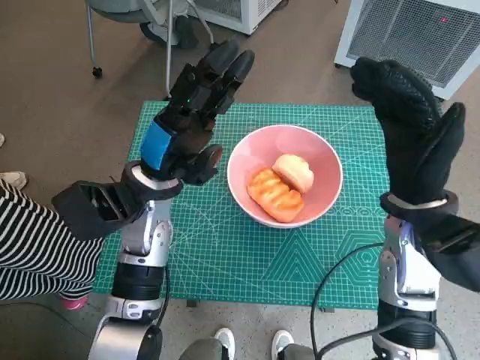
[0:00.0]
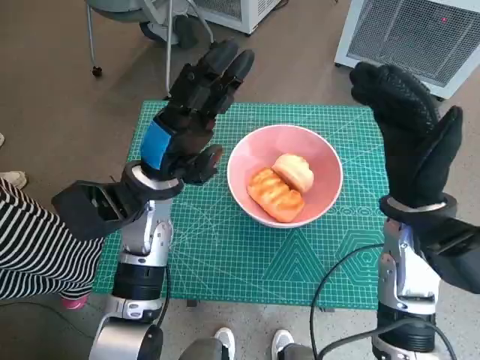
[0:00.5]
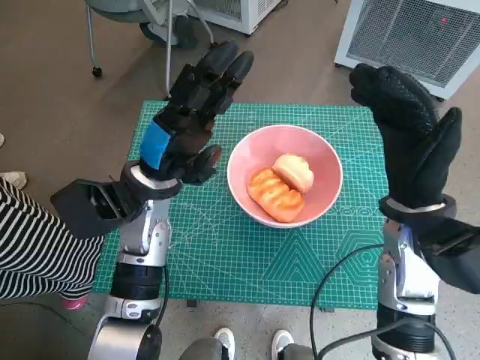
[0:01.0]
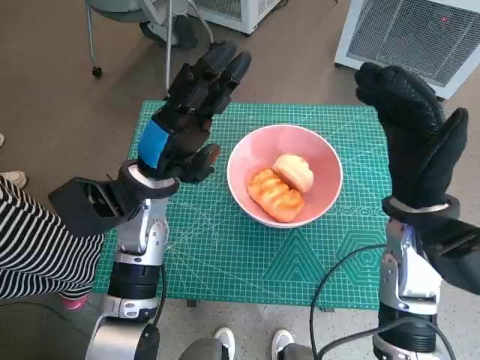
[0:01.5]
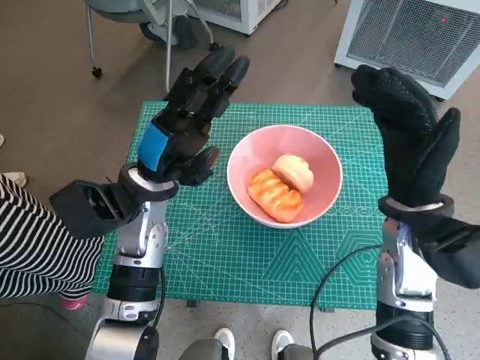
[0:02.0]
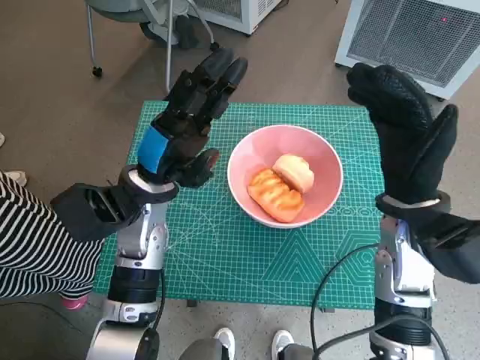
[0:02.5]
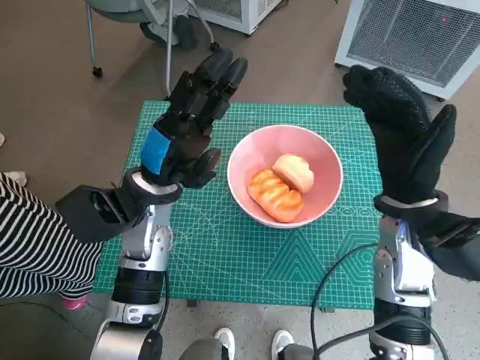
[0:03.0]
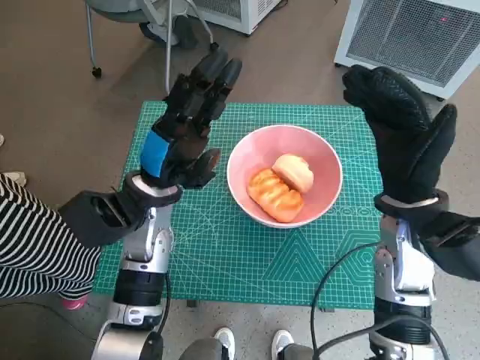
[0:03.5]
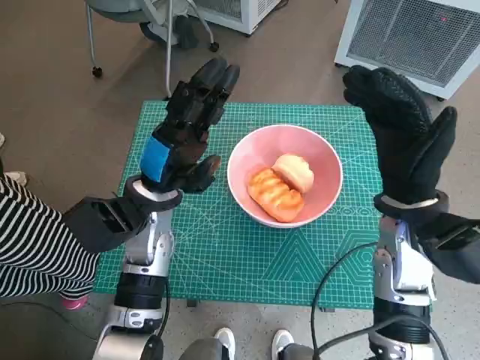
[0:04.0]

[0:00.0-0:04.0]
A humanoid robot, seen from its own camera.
Task of the whole recording: Push the bowl into the center of the table and put the bread into the bowl.
0:00.0 to 0:02.0: The two hands keep their place.
0:02.0 to 0:04.0: The hands move only a little.

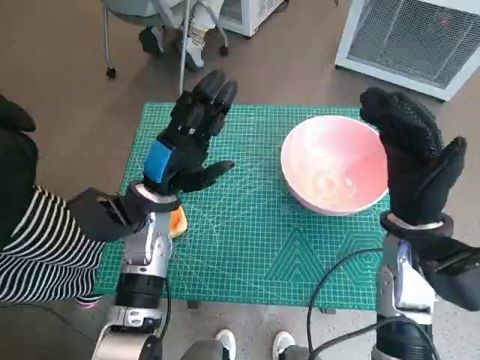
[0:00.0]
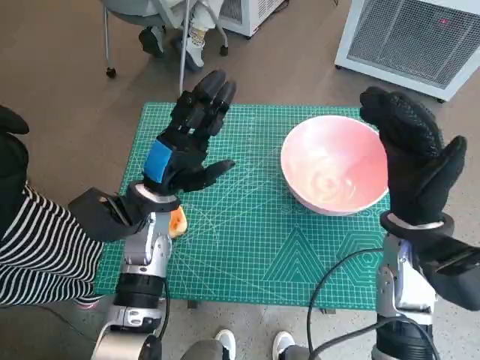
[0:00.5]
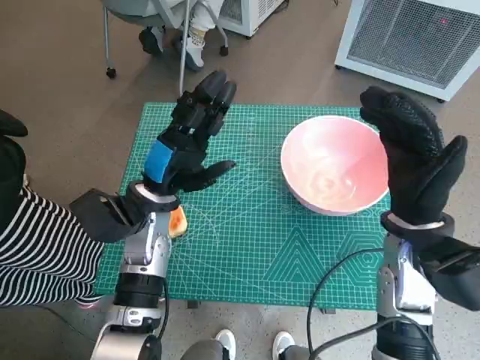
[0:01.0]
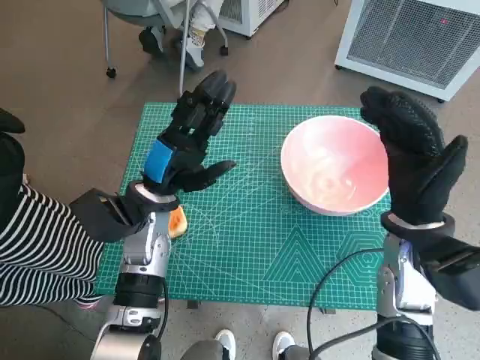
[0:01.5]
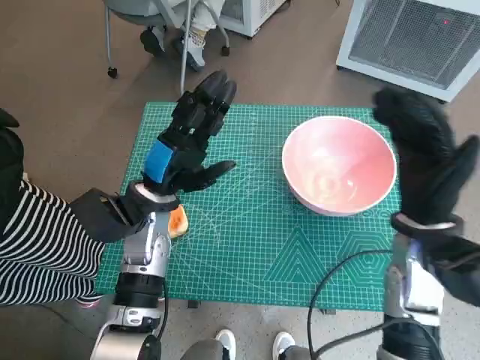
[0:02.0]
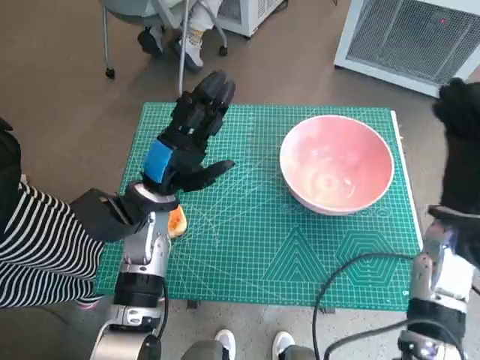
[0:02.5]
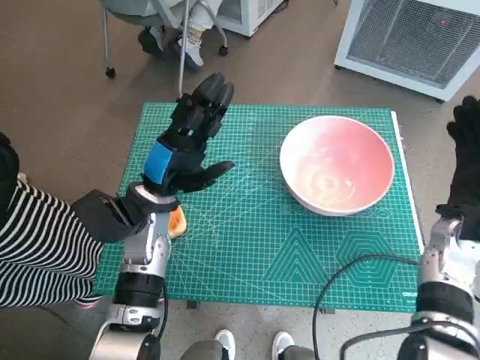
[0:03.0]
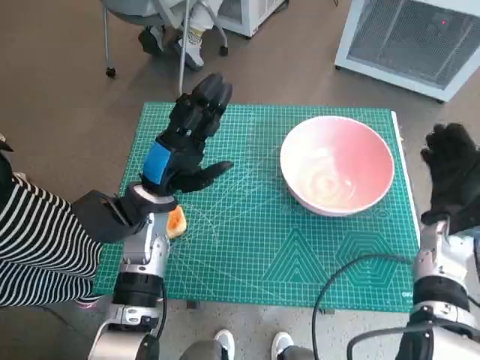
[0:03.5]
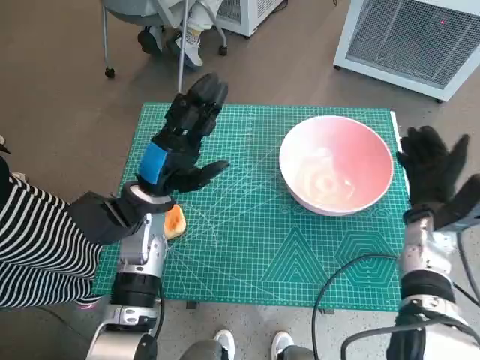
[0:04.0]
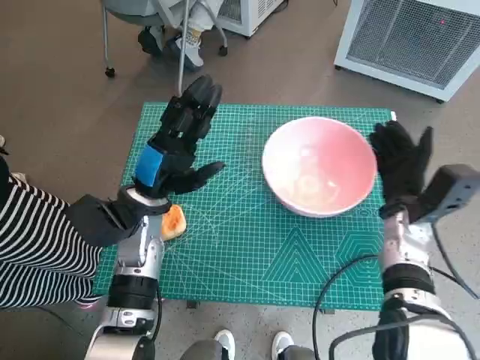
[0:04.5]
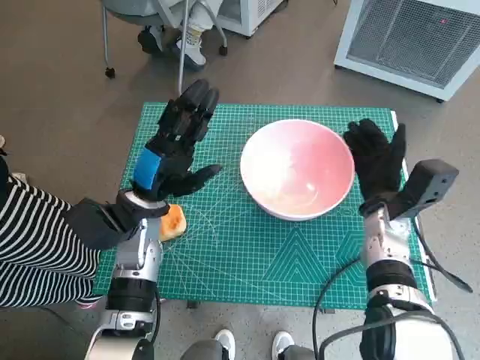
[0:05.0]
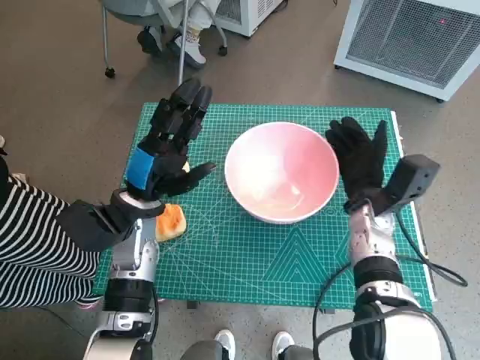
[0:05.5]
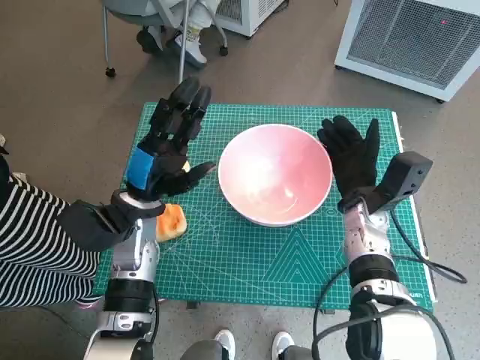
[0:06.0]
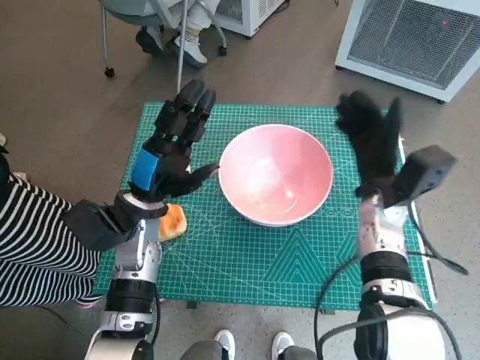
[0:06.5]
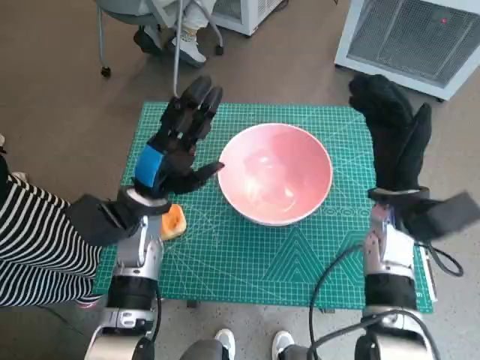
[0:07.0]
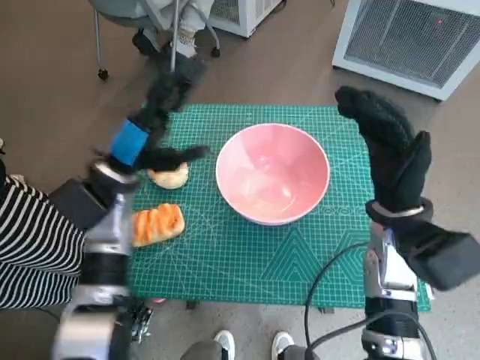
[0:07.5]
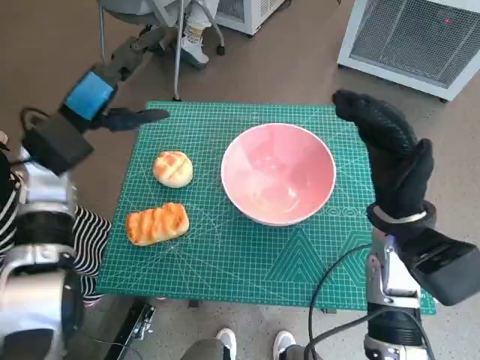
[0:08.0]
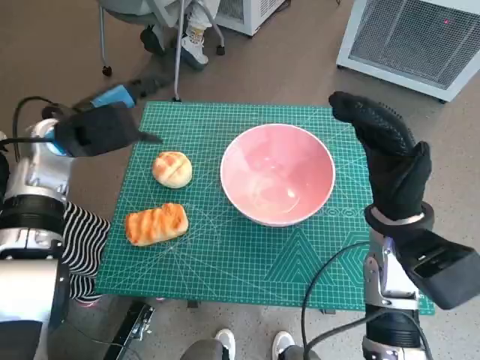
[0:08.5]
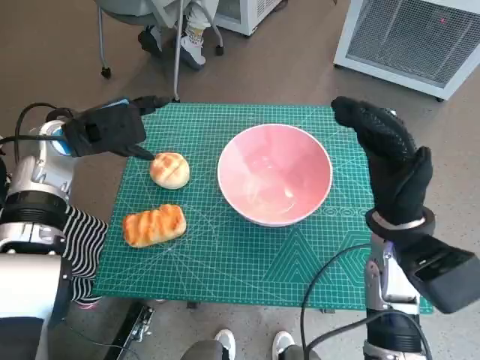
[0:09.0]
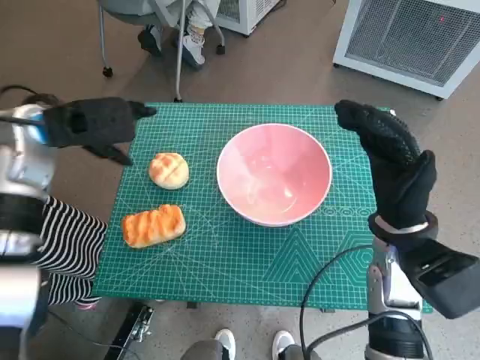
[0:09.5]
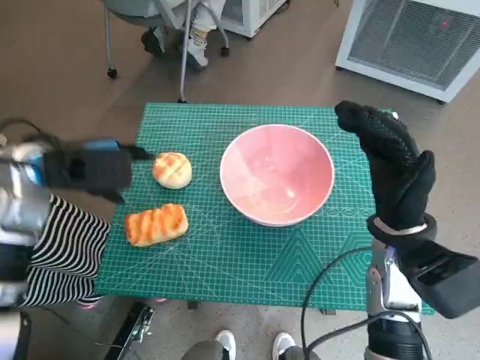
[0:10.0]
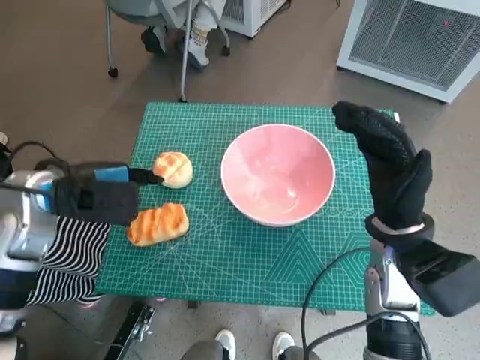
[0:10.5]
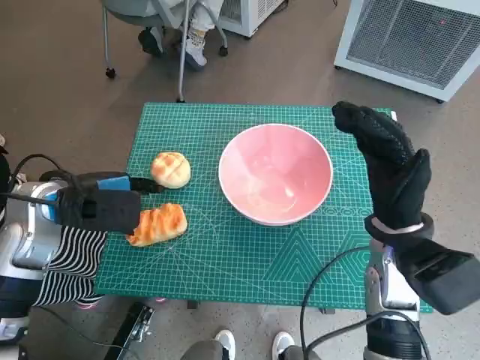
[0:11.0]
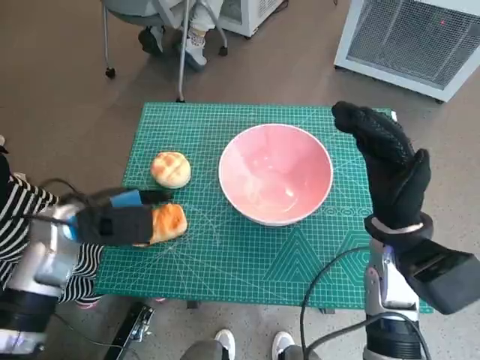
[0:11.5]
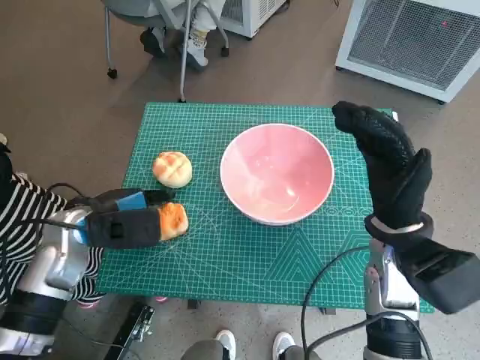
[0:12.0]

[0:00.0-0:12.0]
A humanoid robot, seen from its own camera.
Task of the whole recording: Push the bowl into the center of the table and put the bread into the bowl.
Step, 0:00.0 to 0:06.0: Move the pink bowl to the center of table with right hand.
0:02.0 to 0:04.0: The right hand is displaced downward and to the right by some 10 cm.
0:04.0 to 0:06.0: The right hand travels to the left by about 10 cm.
0:06.0 to 0:08.0: The right hand travels upward and backward by approximately 10 cm; the left hand shifts about 10 cm upward and to the left.
0:10.0 to 0:12.0: The left hand is displaced downward by about 10 cm.

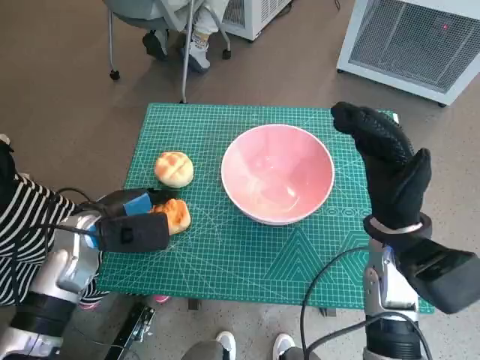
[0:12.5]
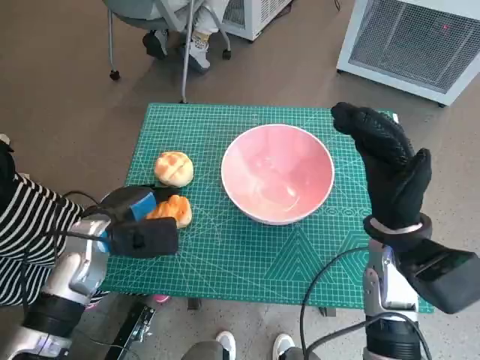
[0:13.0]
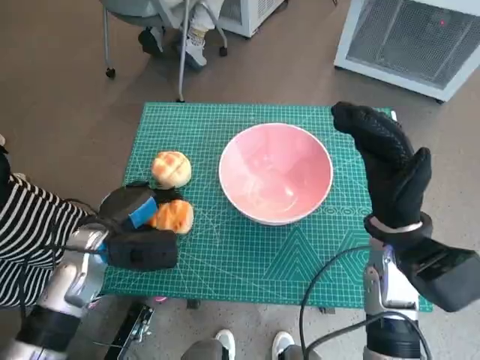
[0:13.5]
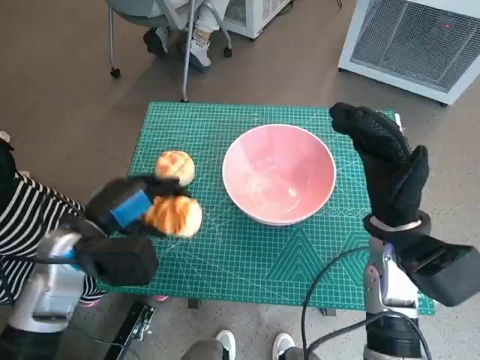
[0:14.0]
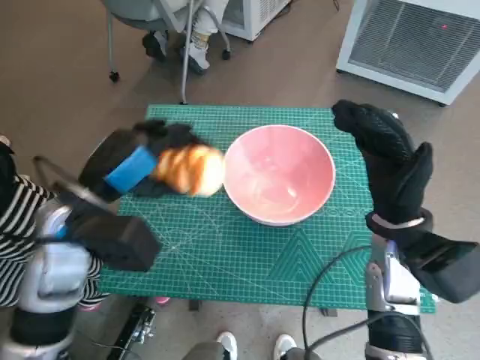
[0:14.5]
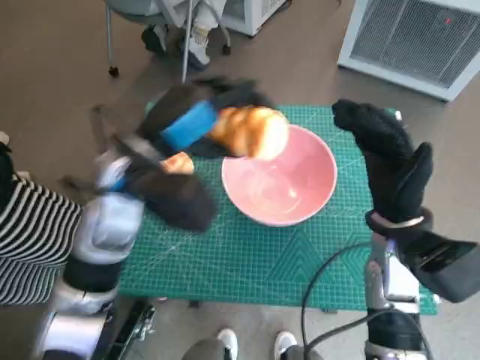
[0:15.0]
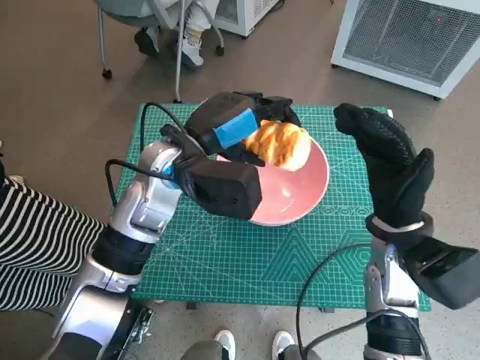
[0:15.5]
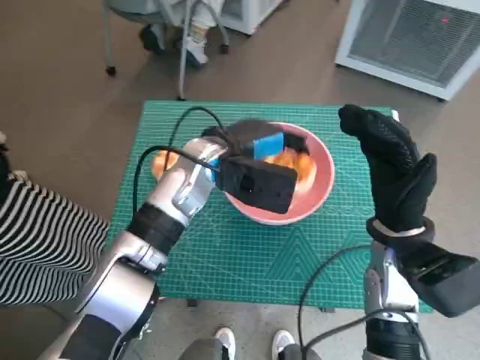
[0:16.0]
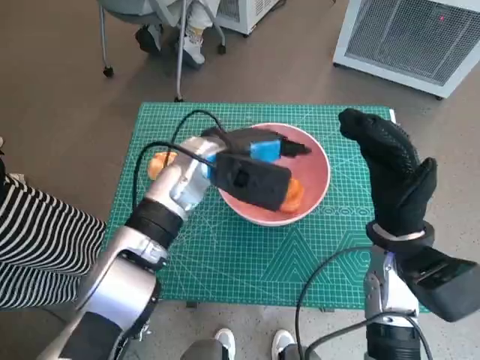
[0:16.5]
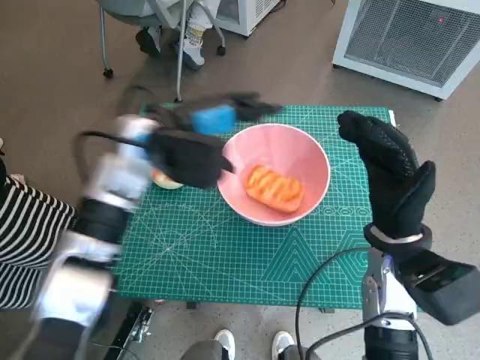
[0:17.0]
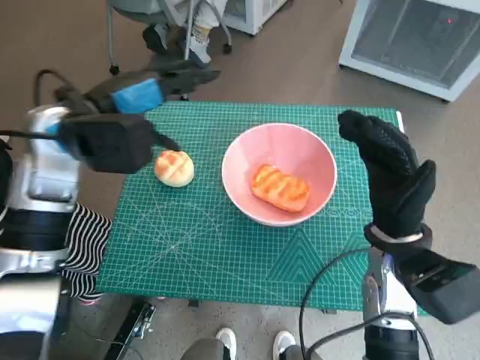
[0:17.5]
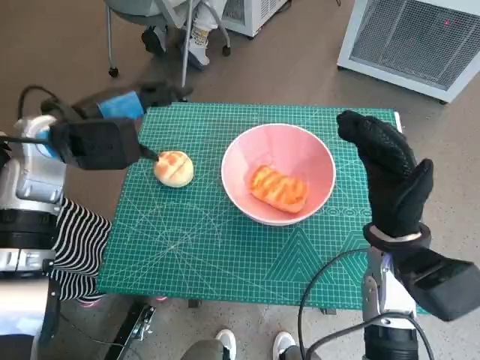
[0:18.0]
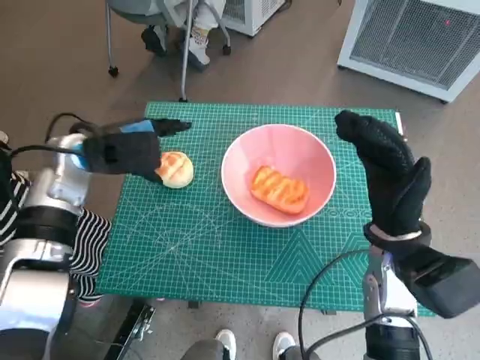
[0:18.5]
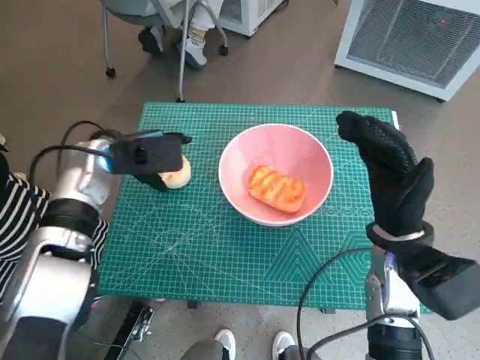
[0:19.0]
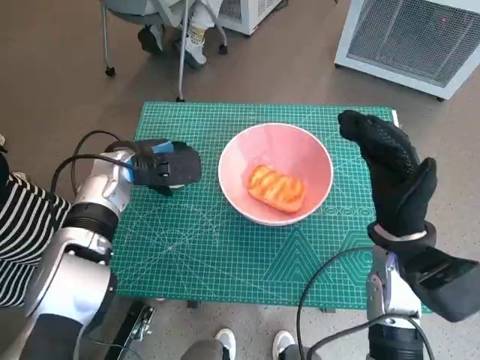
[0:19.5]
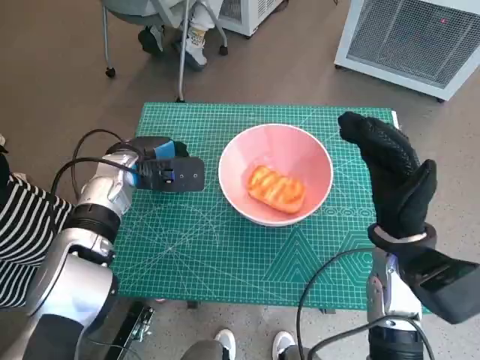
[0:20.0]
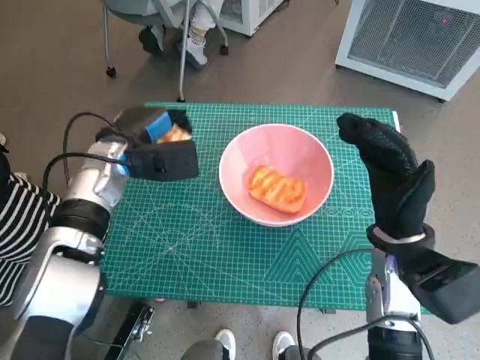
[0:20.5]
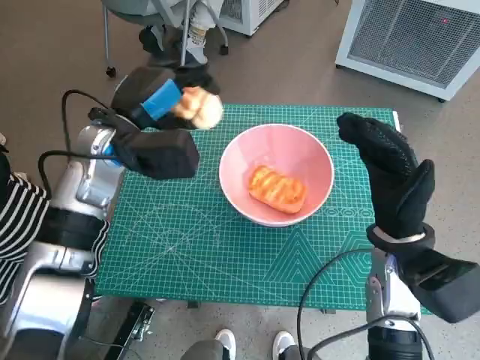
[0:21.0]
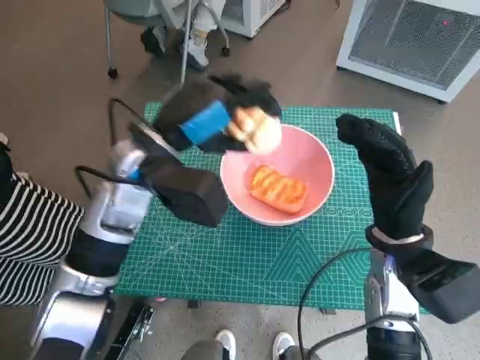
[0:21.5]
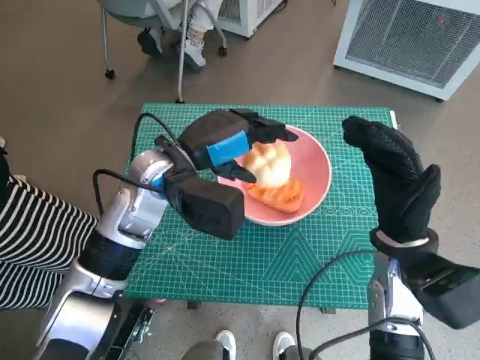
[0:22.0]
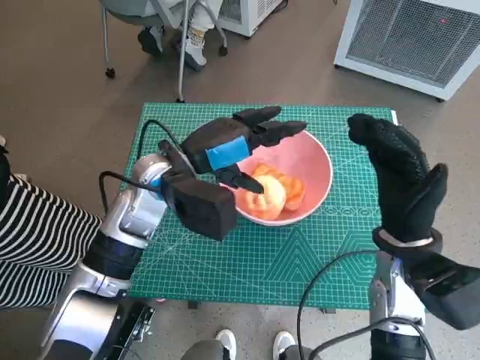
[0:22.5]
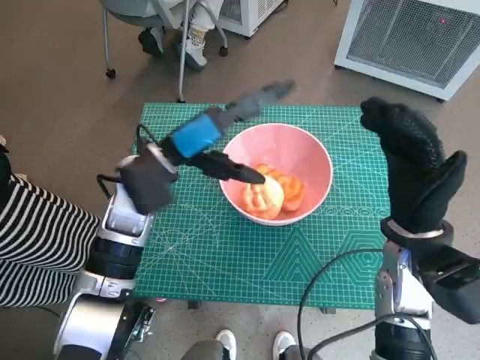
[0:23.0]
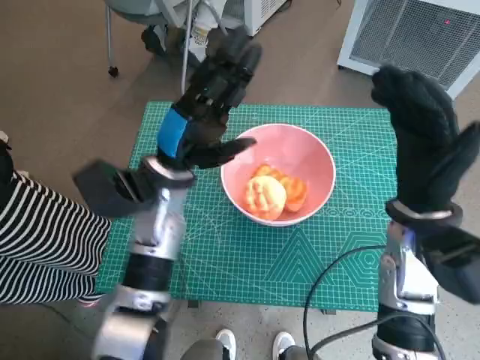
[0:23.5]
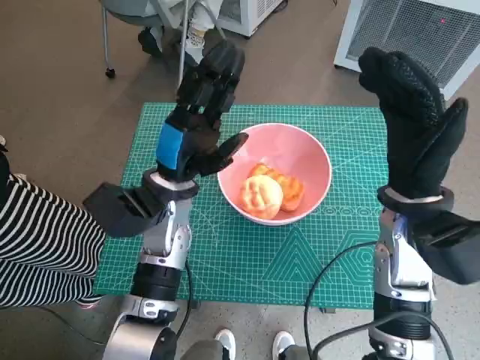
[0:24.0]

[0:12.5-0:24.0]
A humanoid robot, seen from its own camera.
Task of the whole recording: Push the bowl into the center of the table and put the bread into the bowl.
Step, 0:13.5 to 0:16.5: Place the long bread in pink bowl with left hand.
Step, 0:17.0 to 0:19.5: Grasp the round bread with left hand.
Step, 0:20.5 to 0:22.5: Place the round bread in pink bowl with left hand.
0:12.5 to 0:14.5: The left hand is displaced upward by about 10 cm.
0:14.5 to 0:16.5: The left hand is displaced to the right and forward by about 15 cm.
0:16.5 to 0:18.5: The left hand travels to the left by about 15 cm.
0:18.5 to 0:20.0: The left hand moves downward, some 5 cm.
0:20.0 to 0:22.0: The left hand shifts roughly 10 cm to the right and upward.
0:22.0 to 0:24.0: The right hand goes approximately 5 cm upward; the left hand shifts roughly 5 cm downward.
